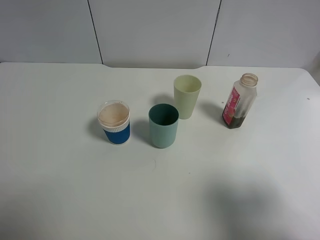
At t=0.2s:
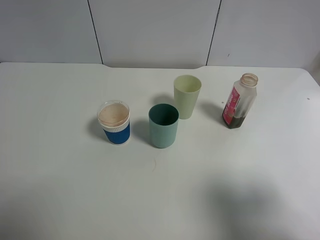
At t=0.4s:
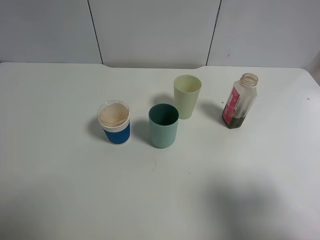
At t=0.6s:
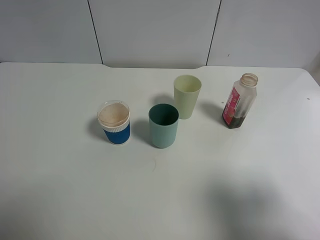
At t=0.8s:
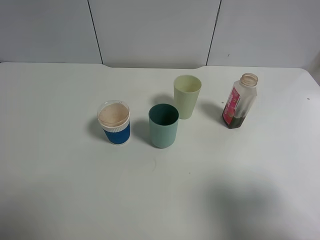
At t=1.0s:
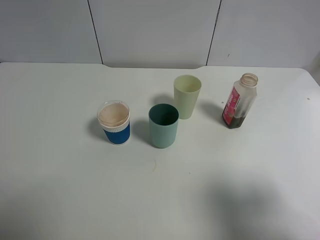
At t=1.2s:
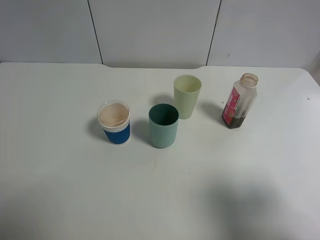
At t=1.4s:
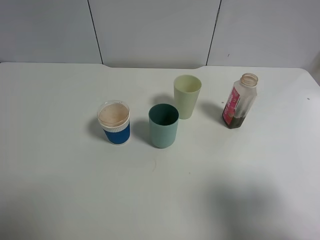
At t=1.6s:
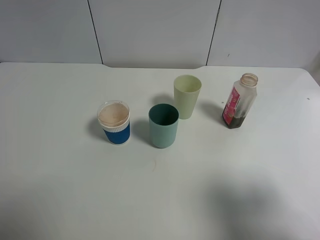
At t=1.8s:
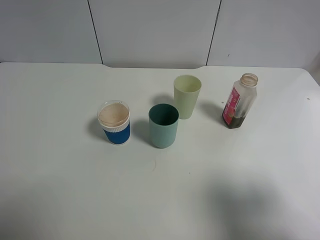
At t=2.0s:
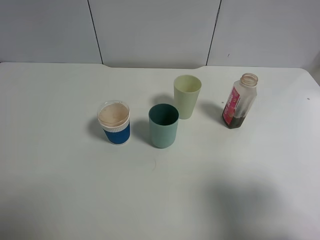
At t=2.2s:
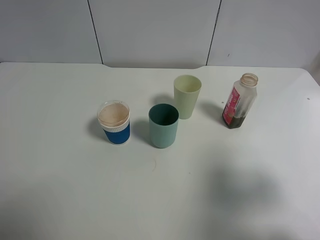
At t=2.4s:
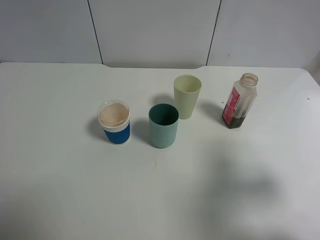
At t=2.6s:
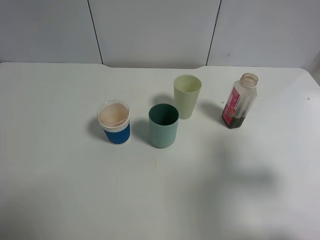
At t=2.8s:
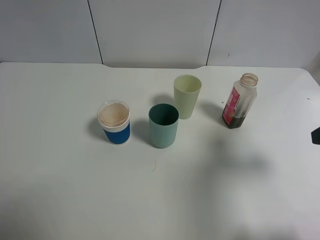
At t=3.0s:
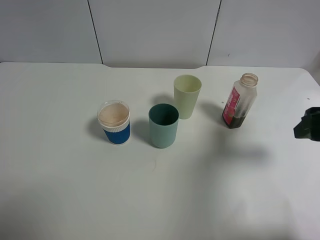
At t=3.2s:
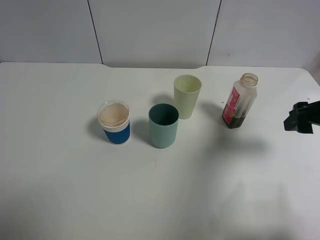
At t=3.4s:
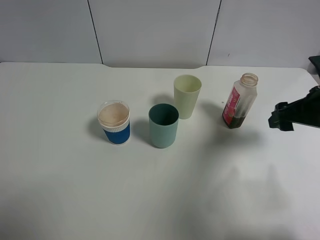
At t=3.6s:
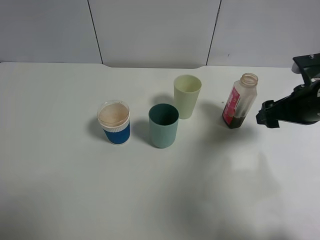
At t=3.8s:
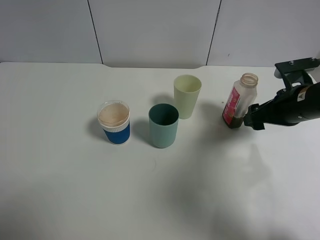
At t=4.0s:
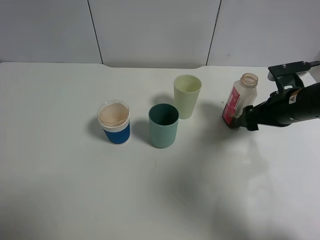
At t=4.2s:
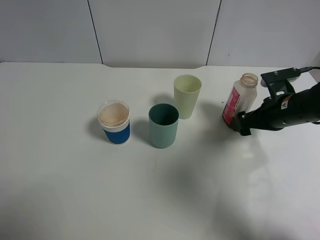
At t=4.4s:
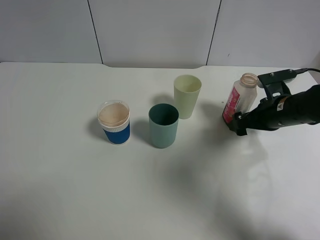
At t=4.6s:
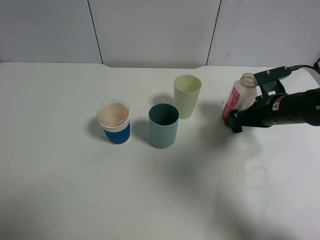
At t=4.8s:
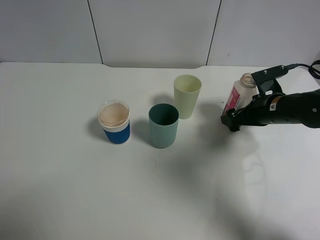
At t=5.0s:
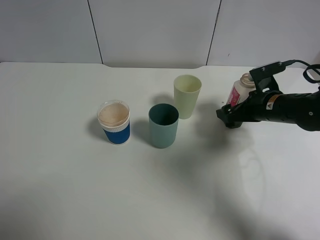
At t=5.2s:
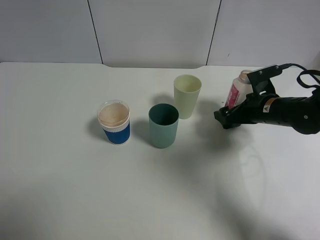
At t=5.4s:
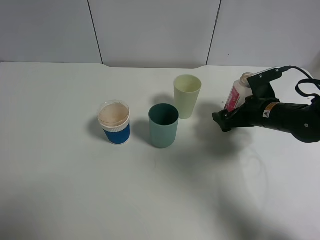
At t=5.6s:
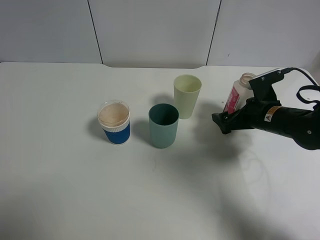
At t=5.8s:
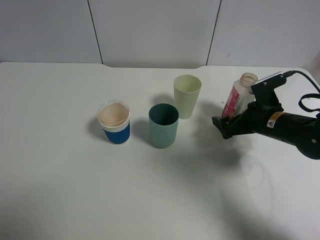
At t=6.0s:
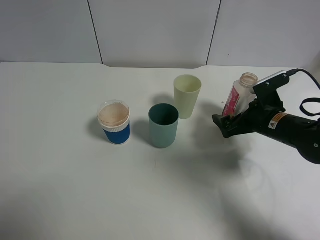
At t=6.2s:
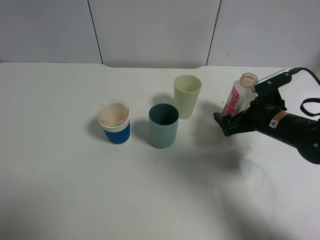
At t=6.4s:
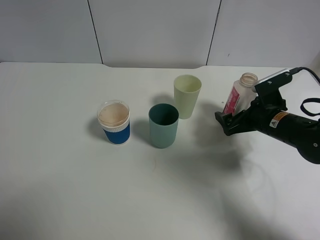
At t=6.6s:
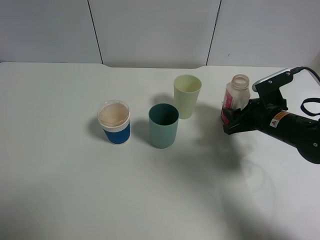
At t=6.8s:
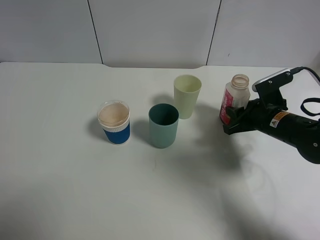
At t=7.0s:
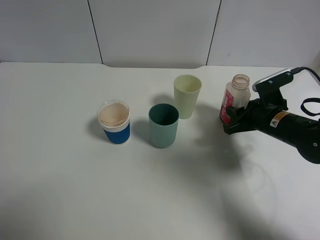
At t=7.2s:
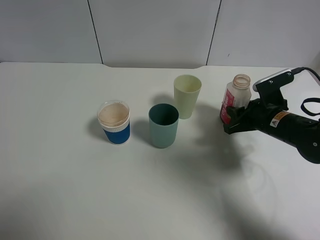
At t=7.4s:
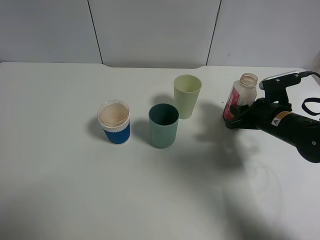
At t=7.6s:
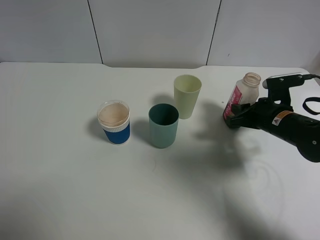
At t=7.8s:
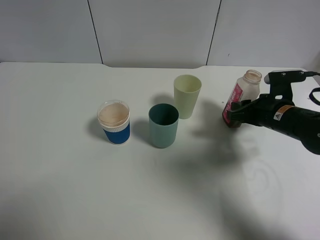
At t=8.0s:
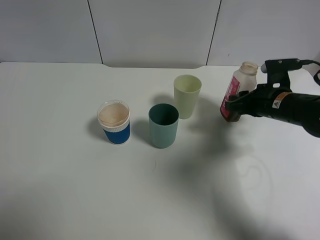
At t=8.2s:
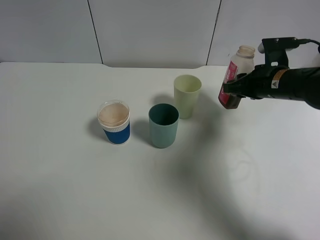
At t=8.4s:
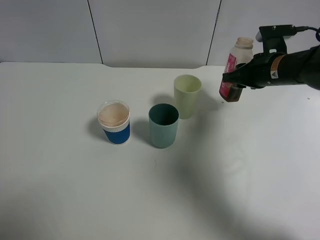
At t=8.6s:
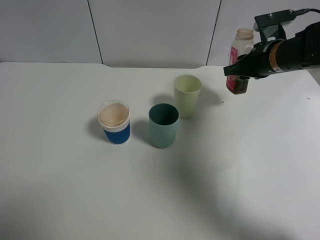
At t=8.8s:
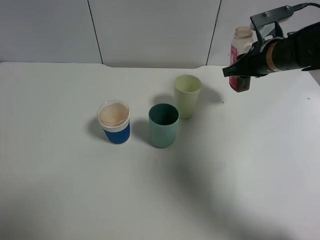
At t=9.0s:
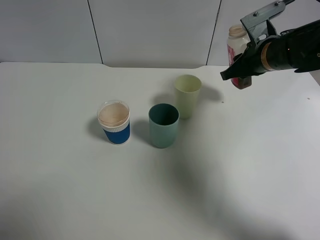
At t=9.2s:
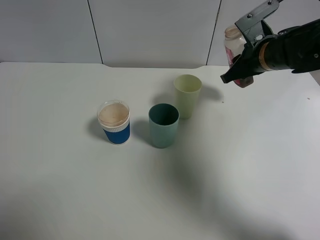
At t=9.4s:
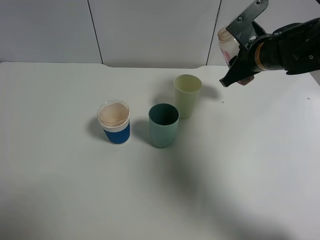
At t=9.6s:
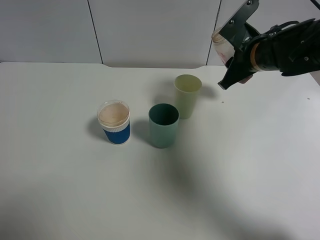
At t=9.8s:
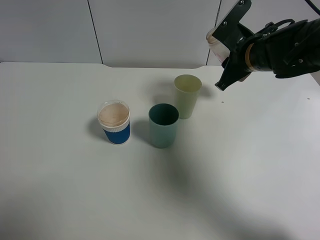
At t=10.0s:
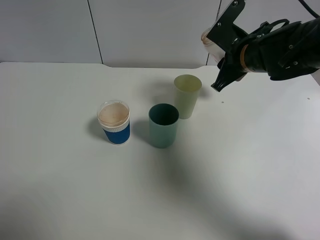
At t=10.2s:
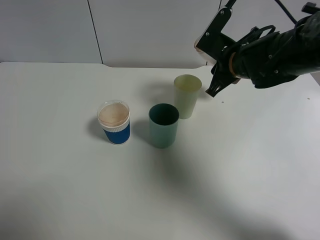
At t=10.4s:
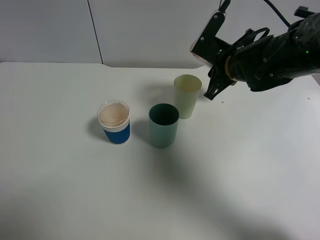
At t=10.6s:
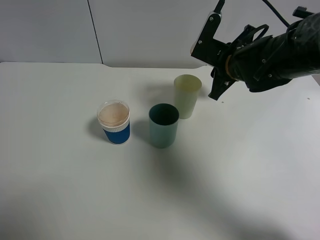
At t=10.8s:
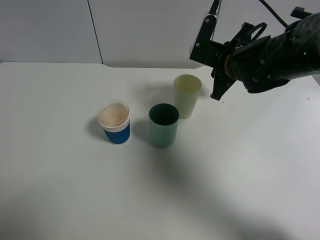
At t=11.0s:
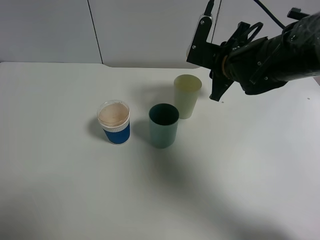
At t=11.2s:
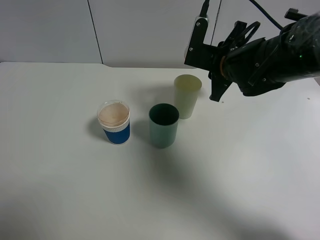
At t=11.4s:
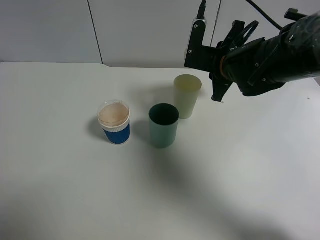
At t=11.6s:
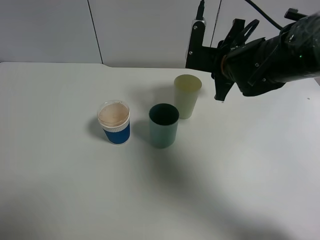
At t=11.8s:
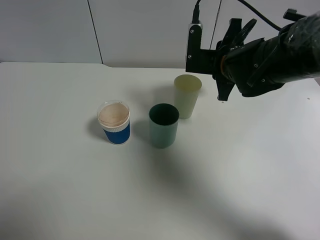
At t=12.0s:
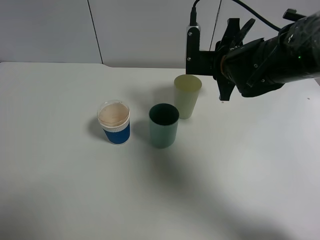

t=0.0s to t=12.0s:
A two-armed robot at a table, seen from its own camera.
Task of the whole recording: use a gripper to hold the bottle of the drink and pour it into a random cup.
Step, t=0.0s to t=7.0s: Grasp the cranberry juice bottle with the right gripper.
t=0.0s to t=1.6s: Both grippers stay about where they are.
t=1.6s to t=3.0s: The right gripper moves forward, approximately 15 cm.
t=3.0s to t=4.4s: The right gripper travels downward and forward by approximately 15 cm.
t=6.0s to t=7.6s: The right gripper closes.
t=7.6s to t=9.0s: The right gripper heads upward and forward, covering about 10 cm.
t=9.0s to t=10.4s: The right gripper shifts roughly 5 cm to the left.

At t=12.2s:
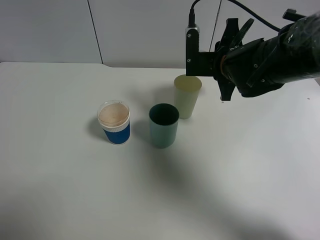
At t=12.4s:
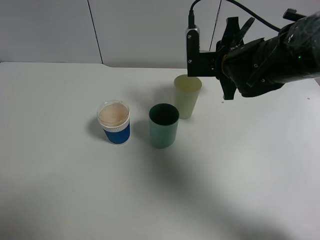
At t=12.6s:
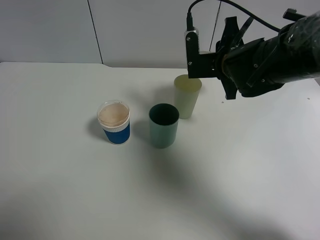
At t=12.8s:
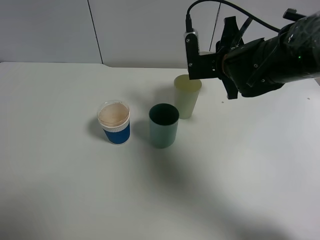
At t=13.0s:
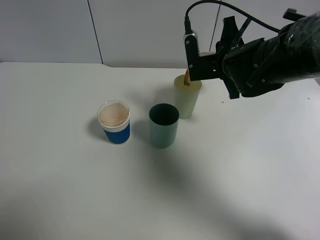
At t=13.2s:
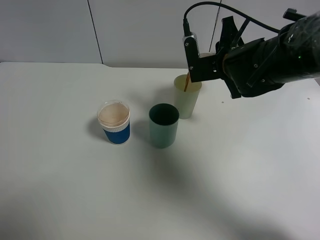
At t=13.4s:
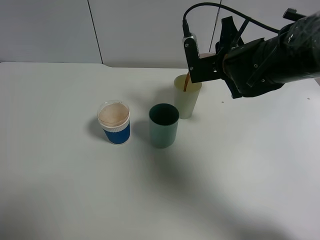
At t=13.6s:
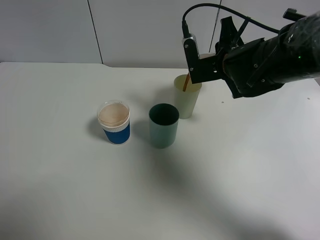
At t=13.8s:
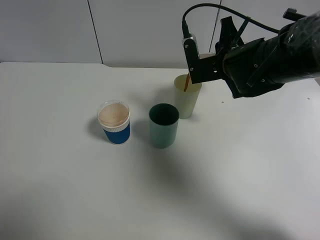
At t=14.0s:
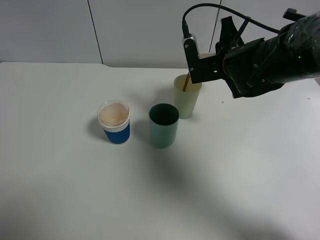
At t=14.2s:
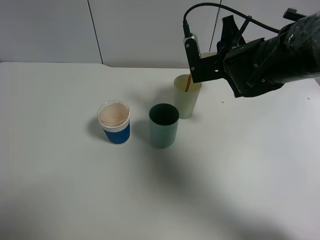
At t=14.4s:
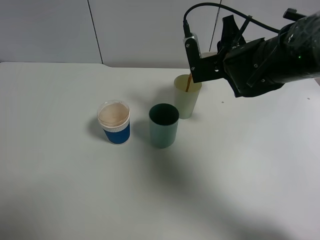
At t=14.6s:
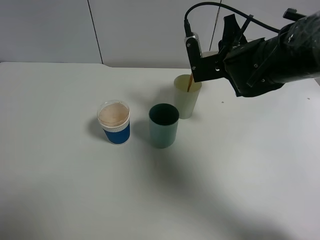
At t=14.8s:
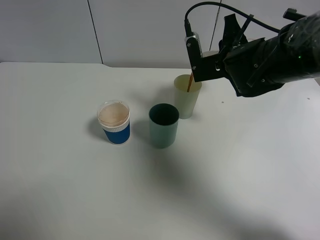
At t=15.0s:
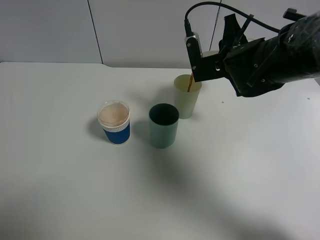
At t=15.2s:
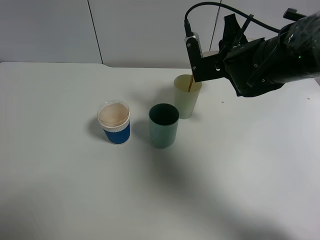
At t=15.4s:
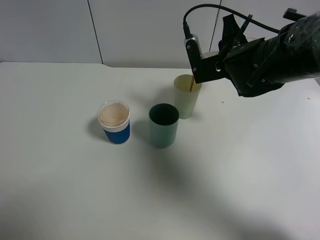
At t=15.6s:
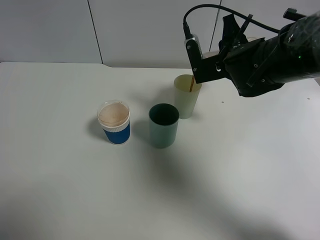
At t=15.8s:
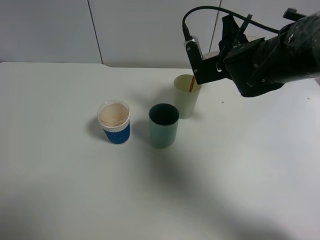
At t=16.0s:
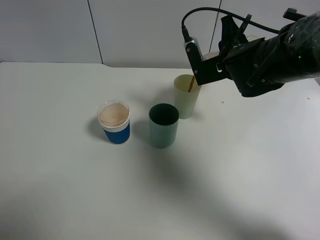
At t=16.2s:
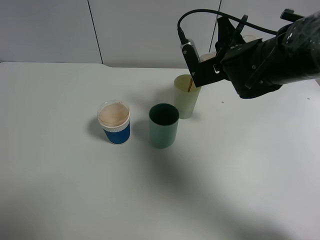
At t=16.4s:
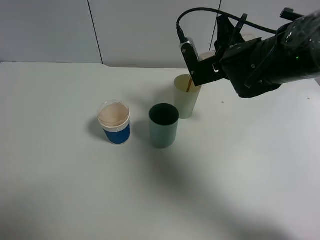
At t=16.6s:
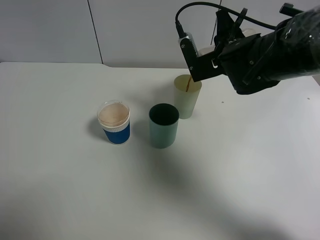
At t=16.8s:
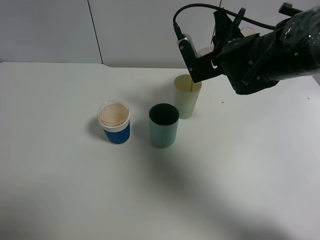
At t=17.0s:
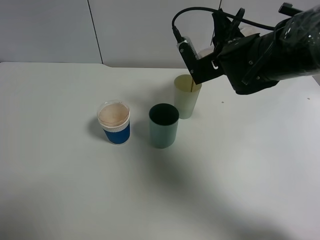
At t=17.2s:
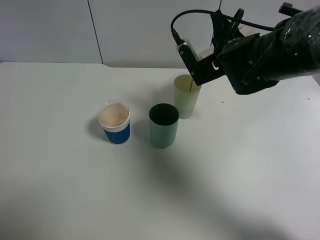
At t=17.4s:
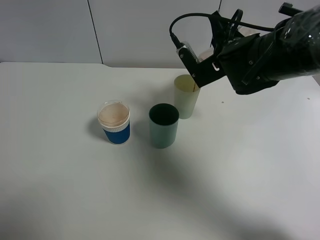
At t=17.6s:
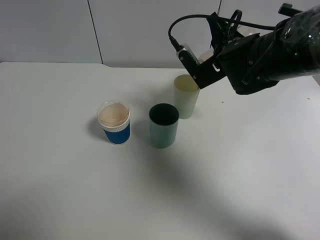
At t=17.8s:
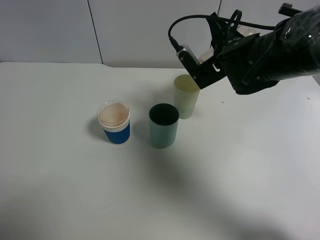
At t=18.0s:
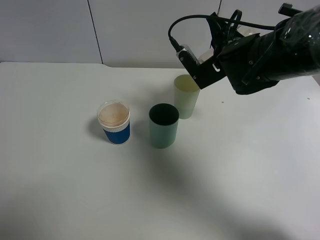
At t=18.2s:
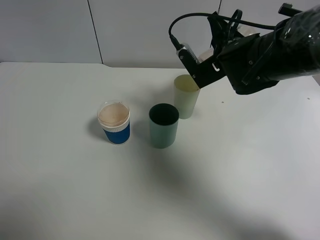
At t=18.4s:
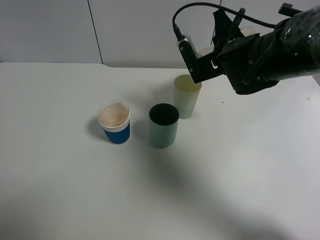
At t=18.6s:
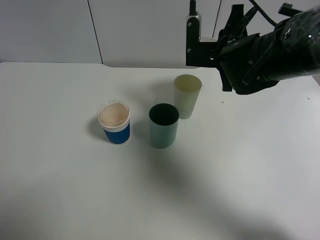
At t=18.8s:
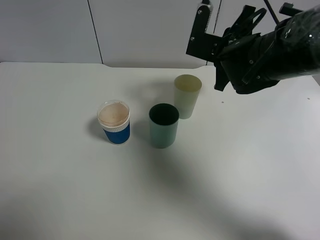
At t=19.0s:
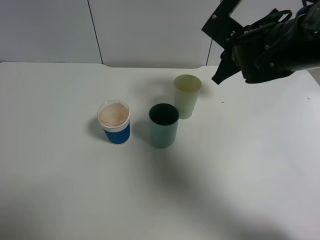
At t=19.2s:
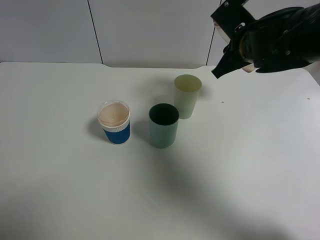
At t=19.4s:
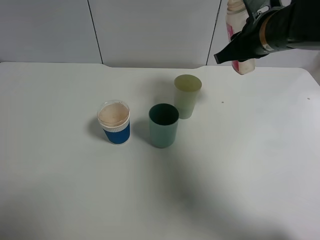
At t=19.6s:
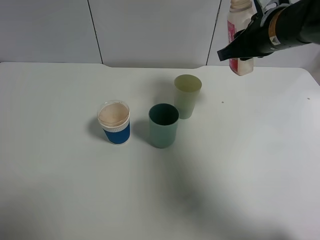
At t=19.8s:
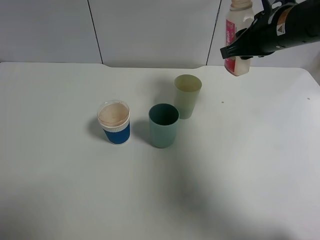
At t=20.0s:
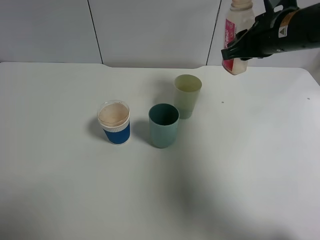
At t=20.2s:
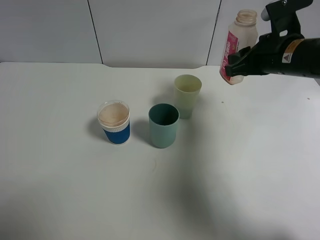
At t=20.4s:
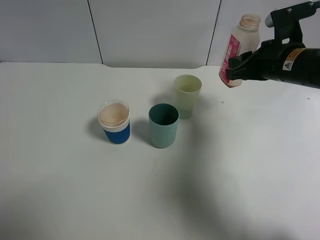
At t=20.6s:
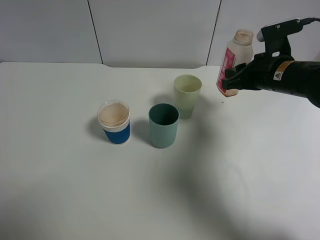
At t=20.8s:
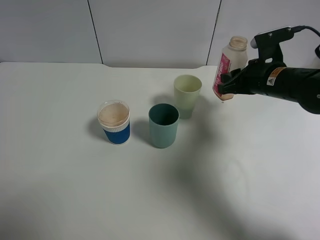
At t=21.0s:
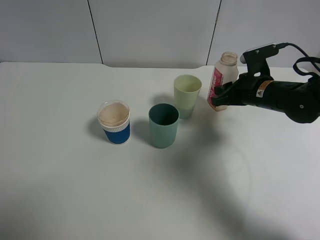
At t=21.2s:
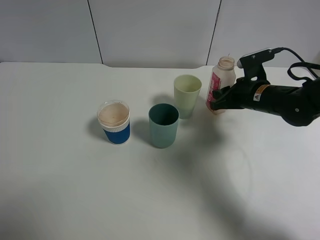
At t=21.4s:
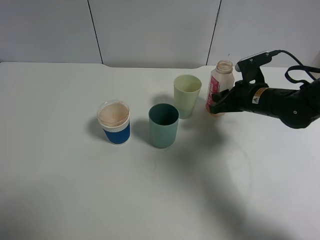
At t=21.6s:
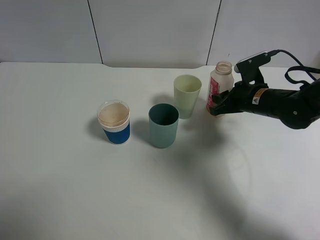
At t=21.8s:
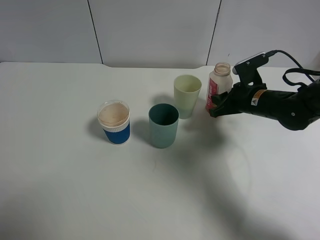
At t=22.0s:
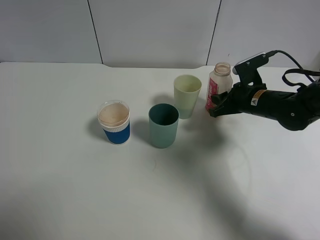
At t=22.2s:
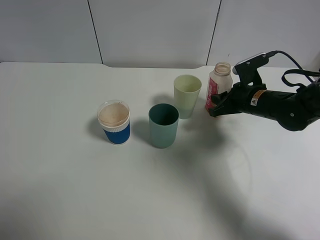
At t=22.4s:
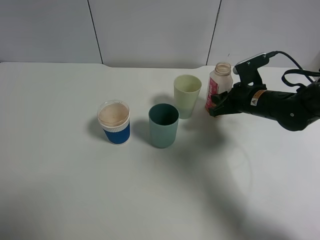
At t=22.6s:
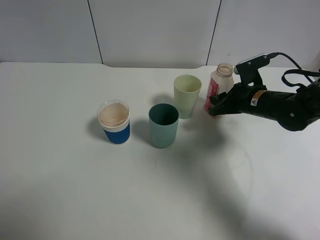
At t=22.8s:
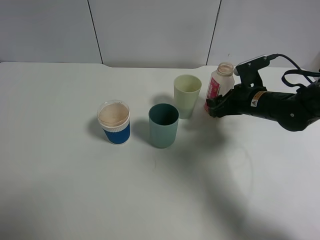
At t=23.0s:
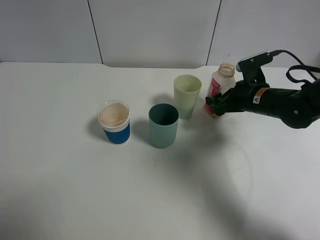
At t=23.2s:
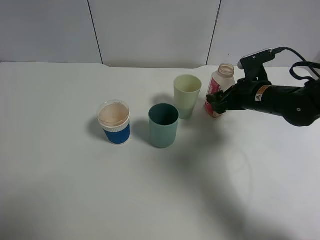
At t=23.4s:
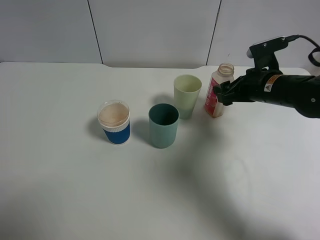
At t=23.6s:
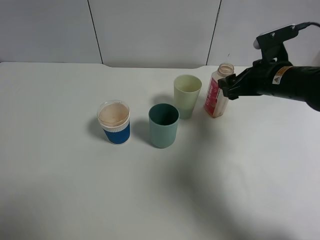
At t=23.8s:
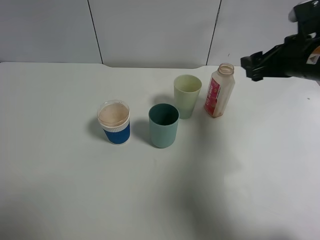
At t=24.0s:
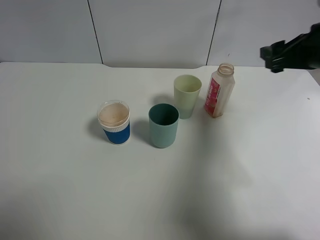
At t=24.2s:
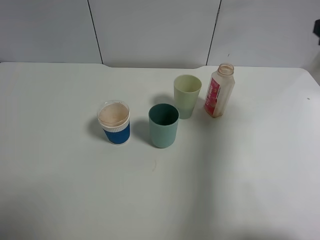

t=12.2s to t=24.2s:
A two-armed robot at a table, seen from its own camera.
Task of the whole recording: use a gripper to hold the bottle of the drink and pour it into a random cup.
Step, t=12.2s to t=18.8s: Pour the cranberry juice into the White Plastic Cup with the right gripper.
Step, t=19.0s to t=23.6s: Place the cranberry juice bottle on the table with the right gripper.
t=12.2s to t=13.8s: There are only small adjustments of the grippers.
t=13.8s to t=15.2s: Both grippers stay about where they are.
t=15.2s to t=16.6s: The grippers stay close to where they were, moving slightly.
t=16.6s to t=18.2s: The grippers make only small movements.
t=18.2s to t=19.8s: The right gripper heads to the right and upward, covering roughly 10 cm.
t=19.8s to t=21.2s: The right gripper heads downward, covering some 15 cm.
t=21.2s to t=22.6s: The grippers move only a little.
t=22.6s to t=24.2s: The right gripper shifts about 25 cm upward, backward and to the right, and opens.
